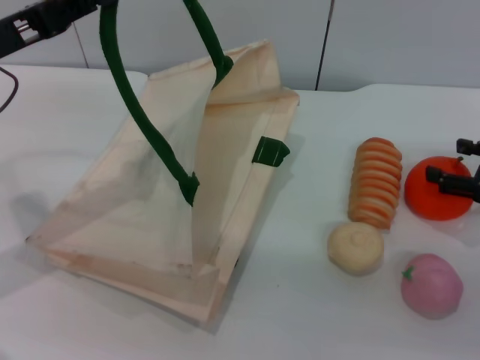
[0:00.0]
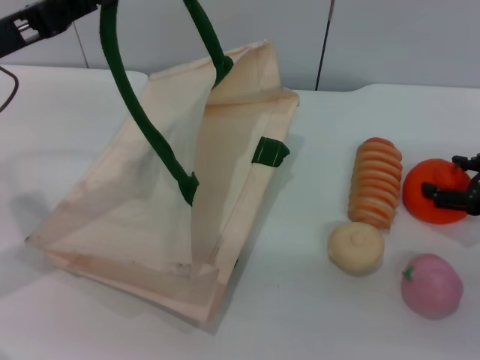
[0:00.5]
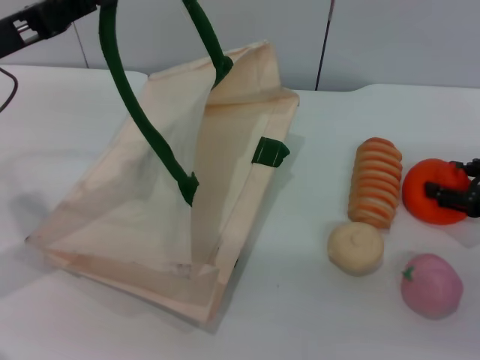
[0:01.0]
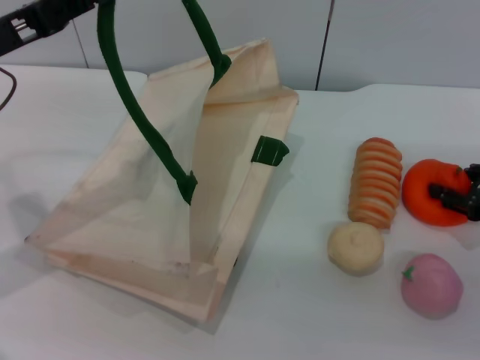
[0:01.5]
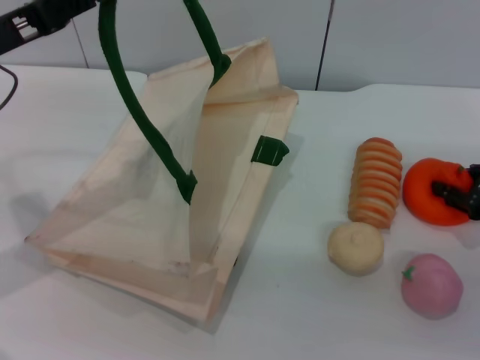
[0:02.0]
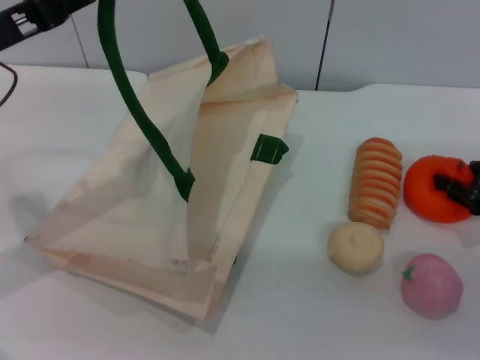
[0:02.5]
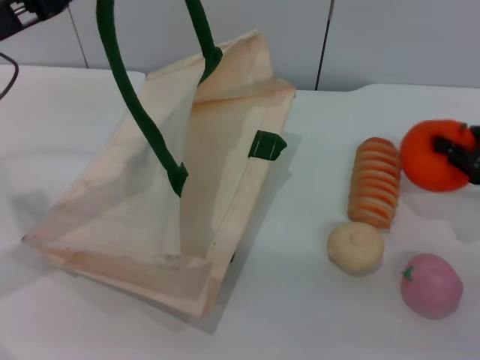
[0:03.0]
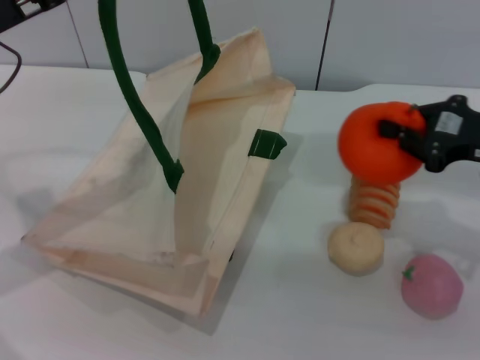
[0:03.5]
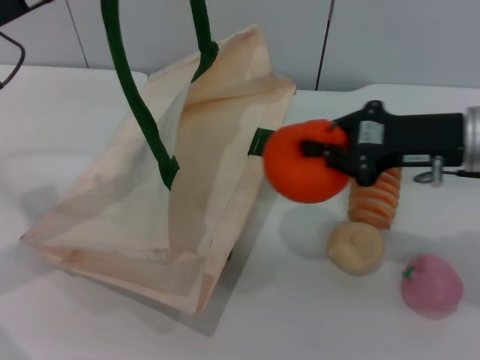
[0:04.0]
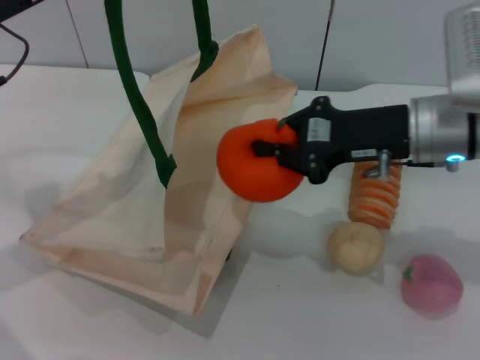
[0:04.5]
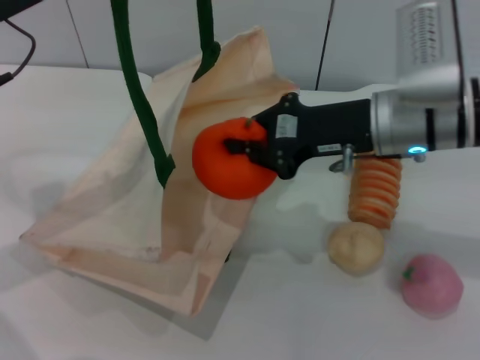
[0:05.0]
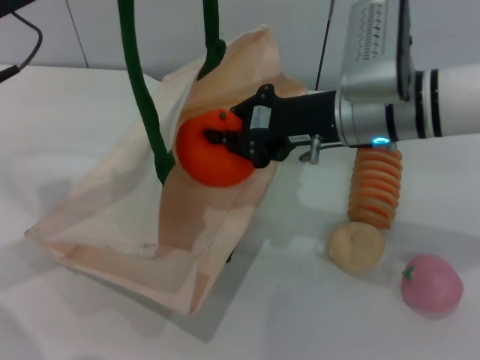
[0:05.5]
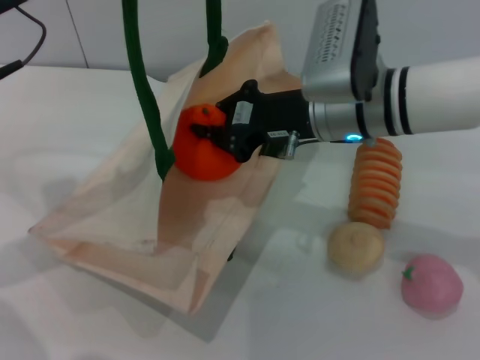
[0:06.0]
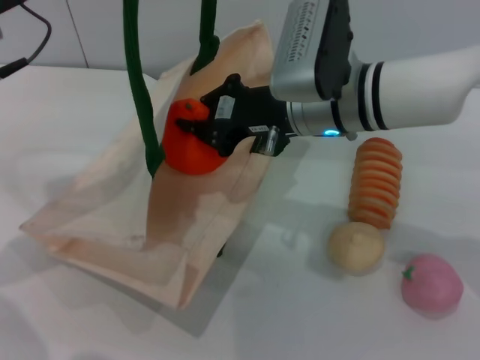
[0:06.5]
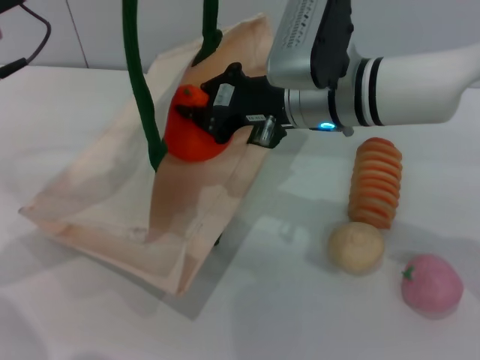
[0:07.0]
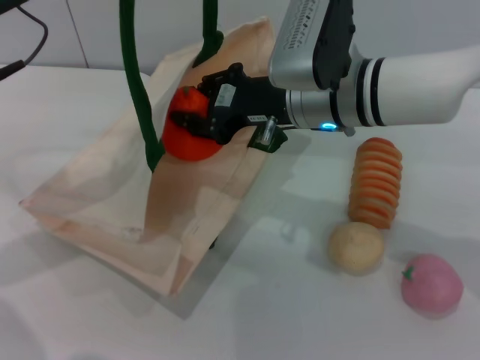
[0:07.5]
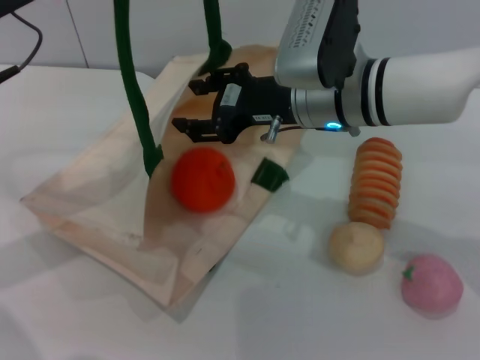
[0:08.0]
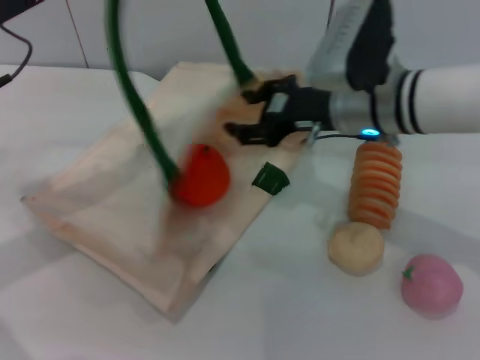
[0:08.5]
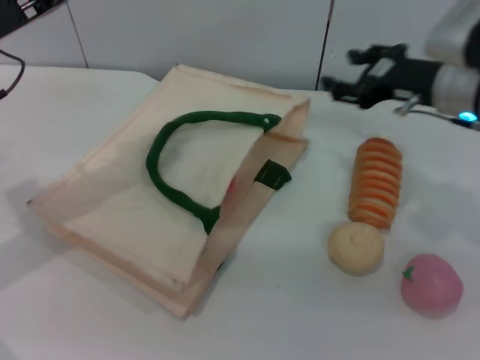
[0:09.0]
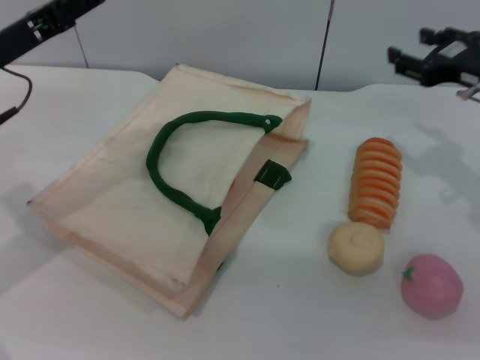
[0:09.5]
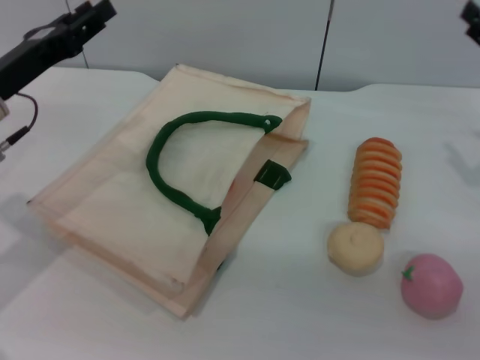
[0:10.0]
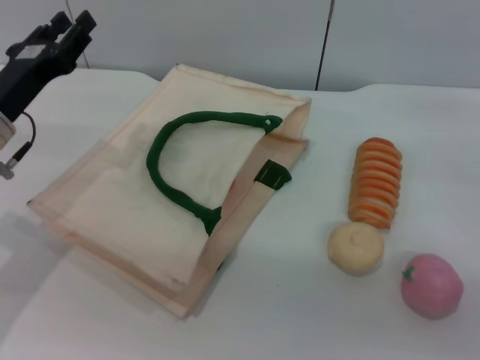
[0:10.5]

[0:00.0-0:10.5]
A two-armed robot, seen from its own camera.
Task of the whole recording: pick up the orange from the table and place it in the white handbag.
Step, 0:00.0 to 0:02.5: Pick up the orange with the right gripper.
Step, 0:03.0 to 0:08.0: Place the orange into the woven bag with the right gripper.
Step, 0:08.5 to 0:09.0: Lower the woven bag with the left gripper to close it.
0:00.0 to 0:02.0: The right gripper closes its fingers.
0:02.0 to 0:04.0: The right gripper shifts some 15 cm to the left and upward, and closes its fingers.
0:04.0 to 0:06.5: The right gripper moves to the left, some 15 cm.
0:06.5 to 0:08.5: The right gripper moves approximately 5 cm, and opens up.
0:08.5 to 0:10.5: The left gripper is displaced downward by approximately 10 cm, and opens its fingers; the right gripper goes some 20 cm to the right.

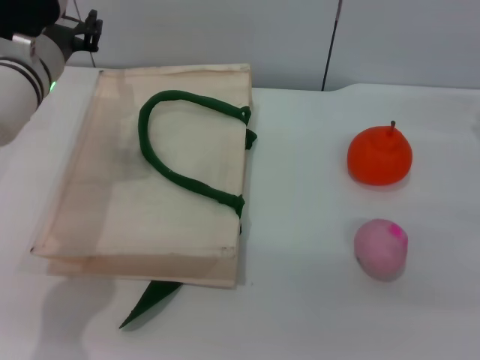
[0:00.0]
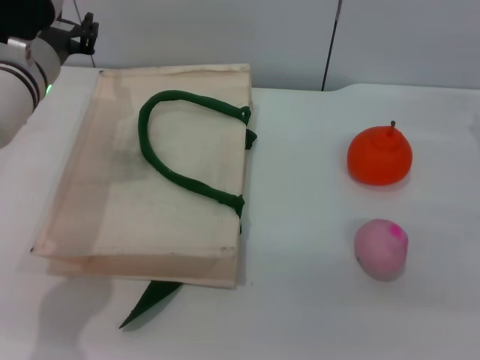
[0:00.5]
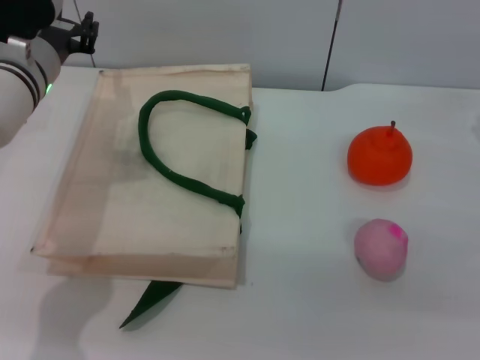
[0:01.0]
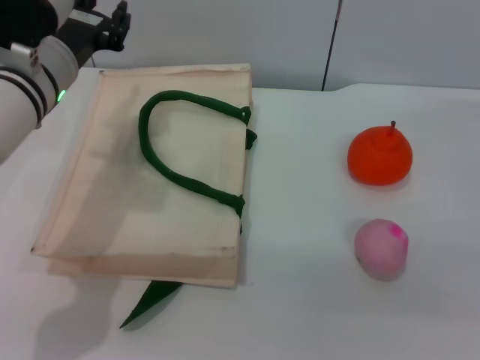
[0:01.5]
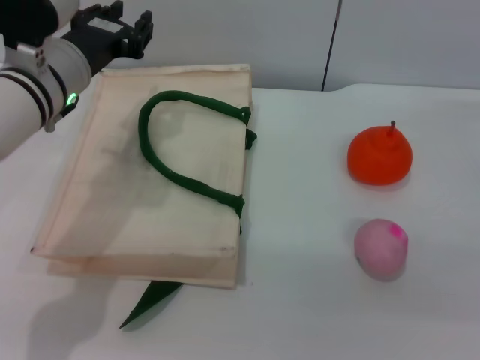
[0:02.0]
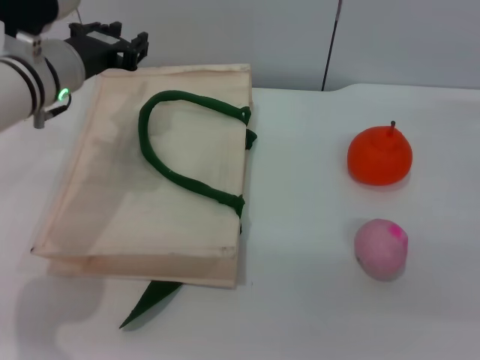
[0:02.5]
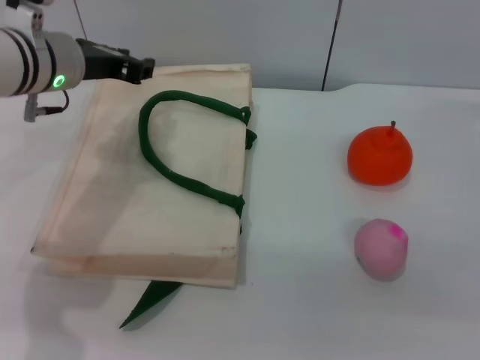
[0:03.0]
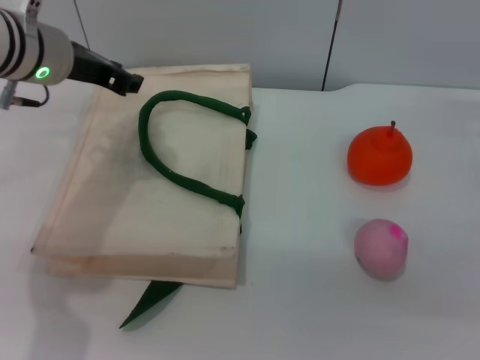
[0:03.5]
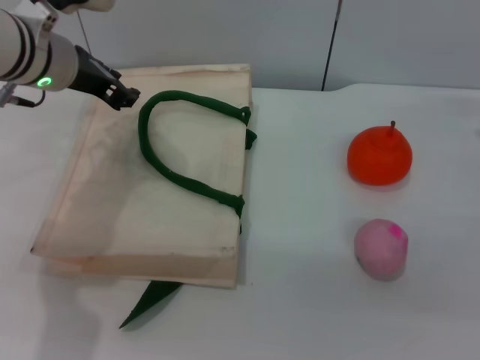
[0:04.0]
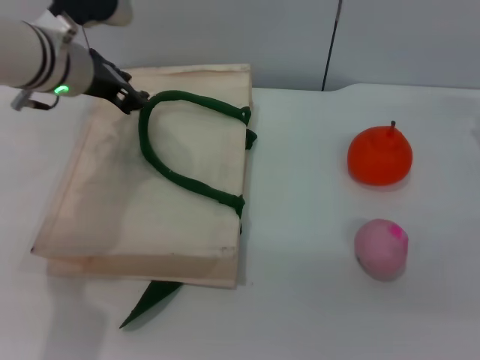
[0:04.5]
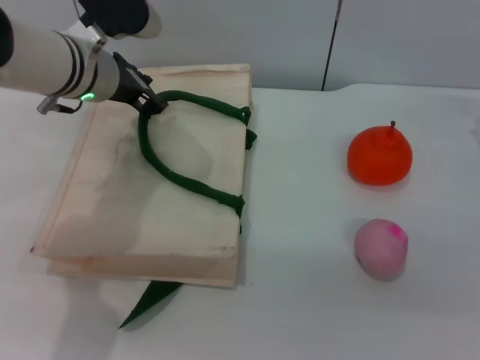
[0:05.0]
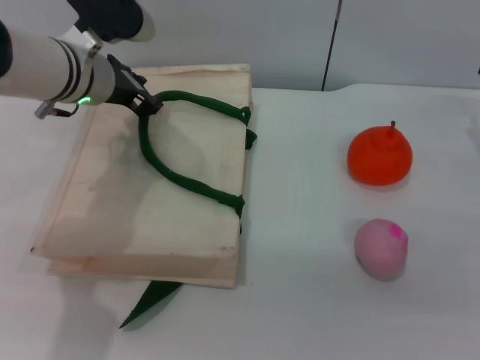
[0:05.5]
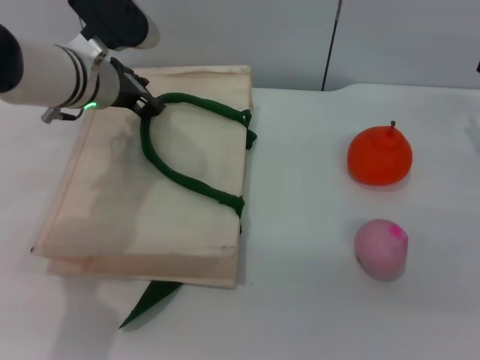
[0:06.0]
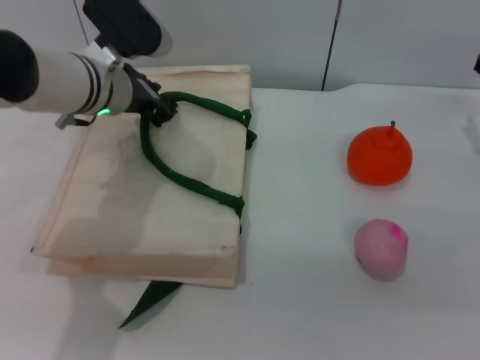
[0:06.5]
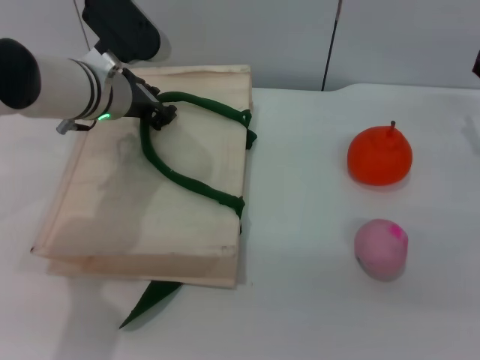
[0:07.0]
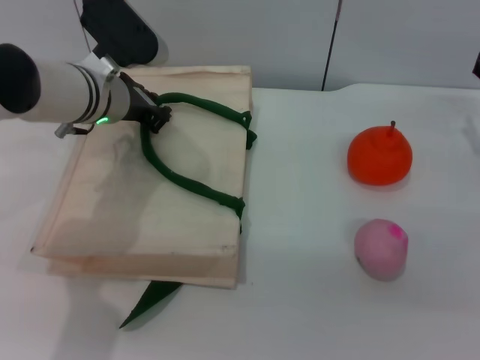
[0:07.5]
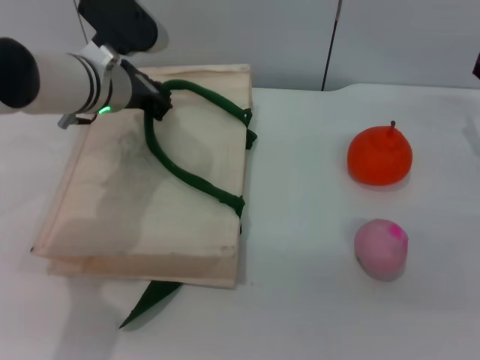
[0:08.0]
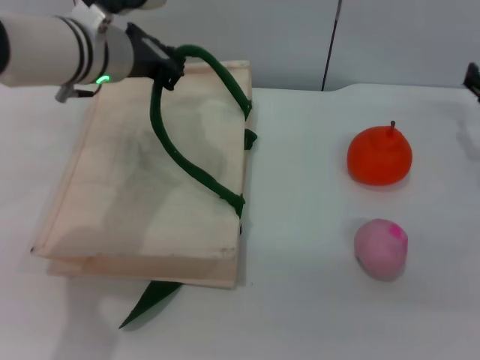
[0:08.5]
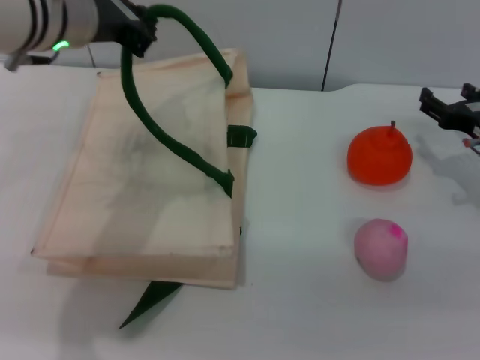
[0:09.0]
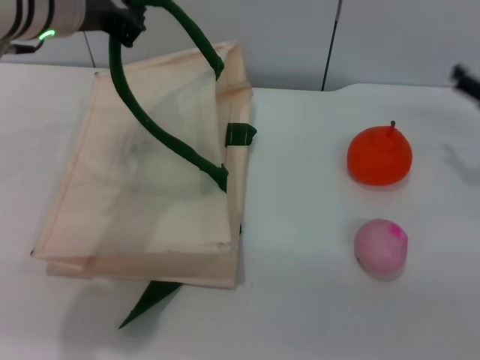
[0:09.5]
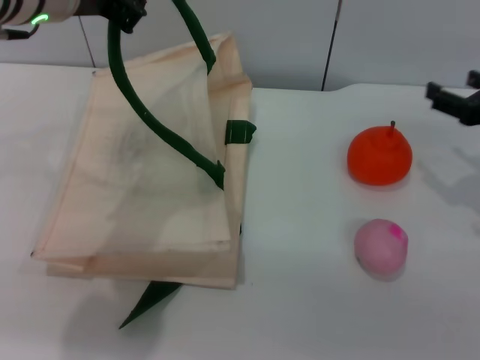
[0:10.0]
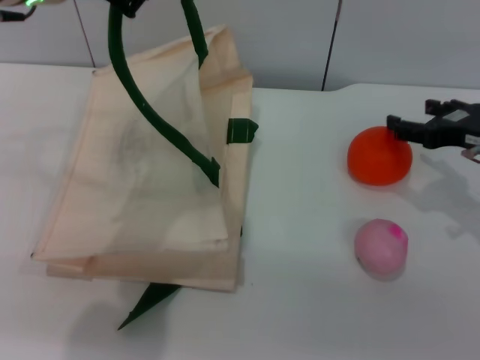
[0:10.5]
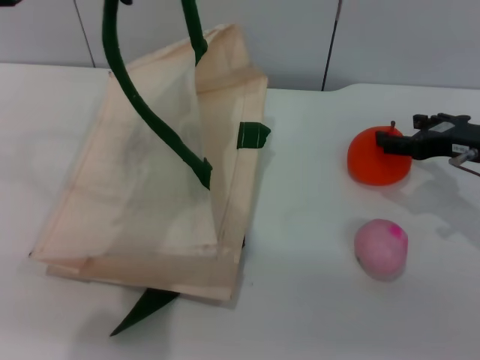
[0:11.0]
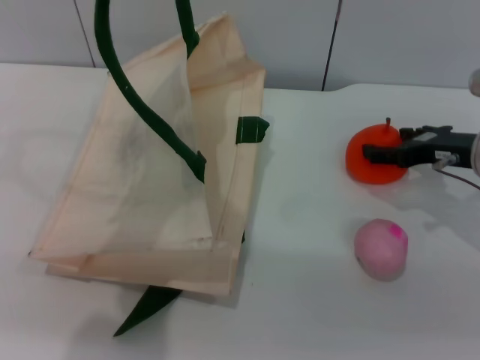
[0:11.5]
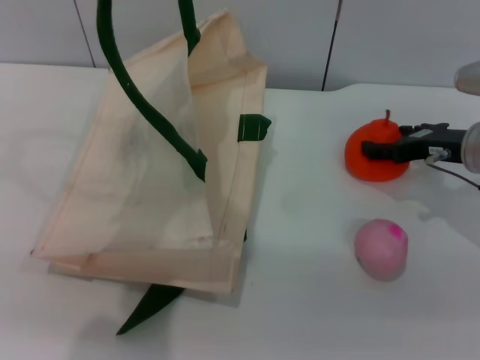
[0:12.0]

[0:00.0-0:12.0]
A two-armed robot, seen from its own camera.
Task of the whole recording: pick up the orange and peach from the table and place it in the white handbag.
Step, 0:00.0 to 0:08.0: Lift the woven bag with the left gripper to open it.
0:00.0 to 0:02.0: There are only small adjustments of the grippers.
0:04.0 to 0:06.0: The left gripper ends up about 5 cm from where it was.
0:06.0 to 0:08.0: The left gripper closes up.
0:08.0 to 0:10.0: The right gripper is displaced backward by some 5 cm. Meanwhile the left gripper travels upward and backward by some 15 cm.
0:10.0 to 0:12.0: The left gripper shifts by some 5 cm. Meanwhile the right gripper is displaced to the left by some 5 cm.

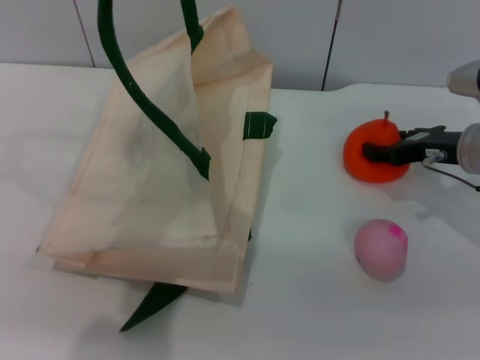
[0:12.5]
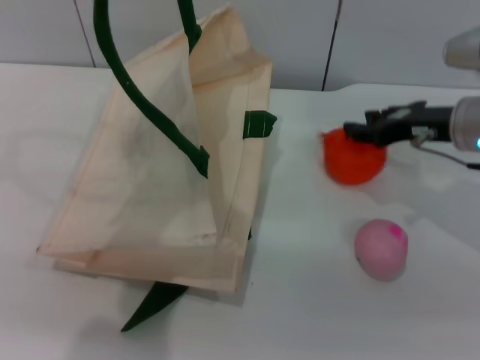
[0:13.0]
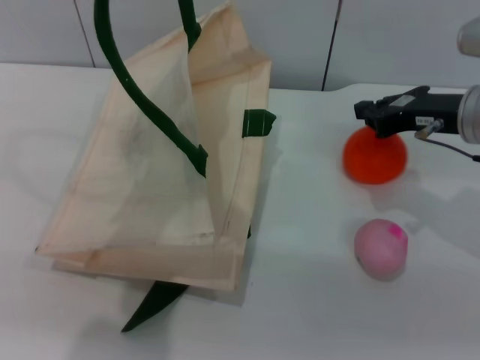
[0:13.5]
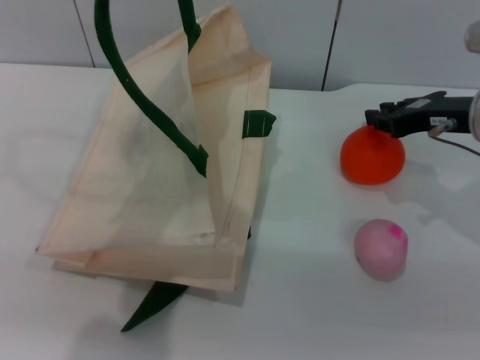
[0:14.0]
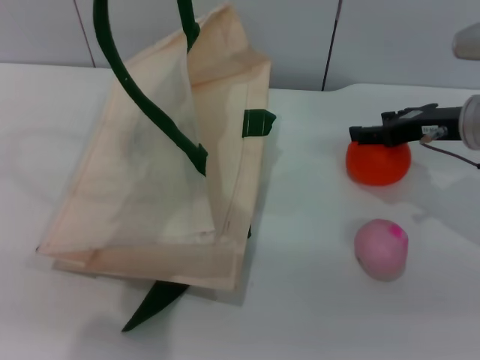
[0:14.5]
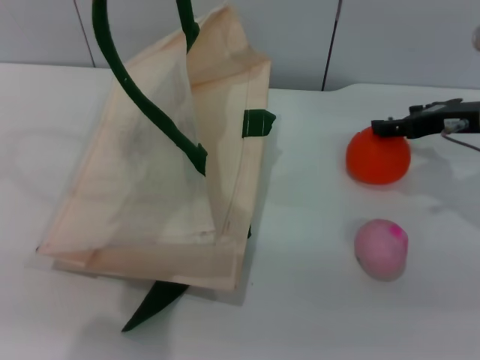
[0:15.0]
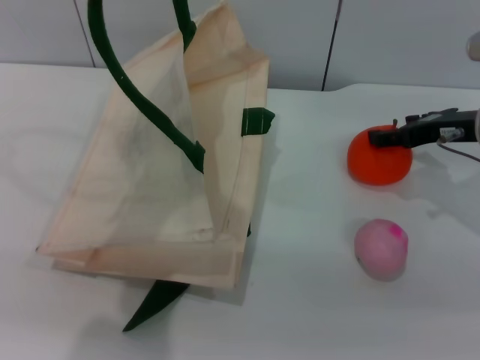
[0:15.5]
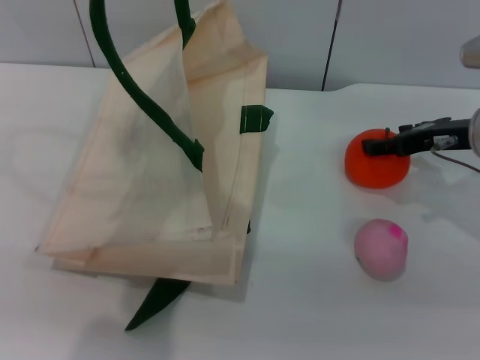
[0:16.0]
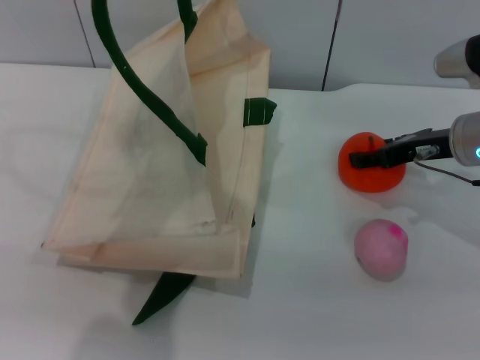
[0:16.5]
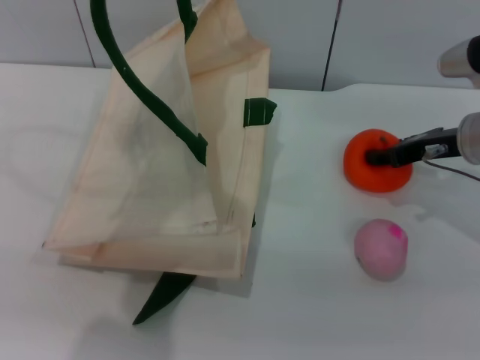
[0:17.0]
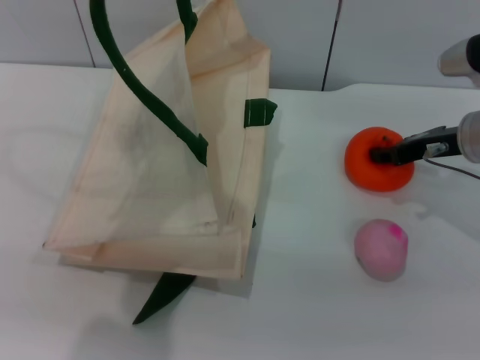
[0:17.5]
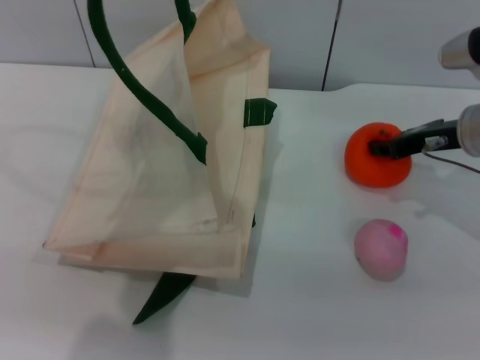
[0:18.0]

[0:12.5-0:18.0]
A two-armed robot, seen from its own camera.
Task of the whole recording: pick up the orange and peach from the table and place it in the white handbag.
0:12.5 to 0:14.5: The right gripper closes, then reopens.
0:14.5 to 0:16.0: The right gripper opens up.
0:16.0 to 0:18.0: The right gripper closes its fingers.
